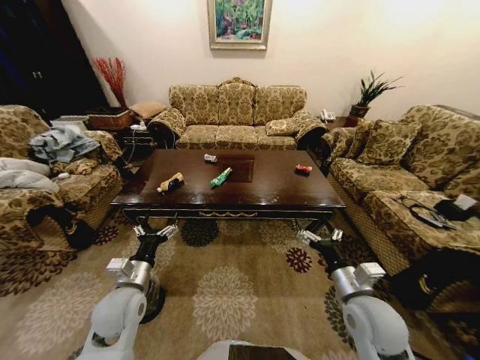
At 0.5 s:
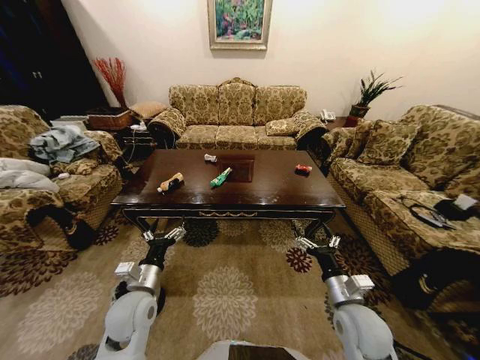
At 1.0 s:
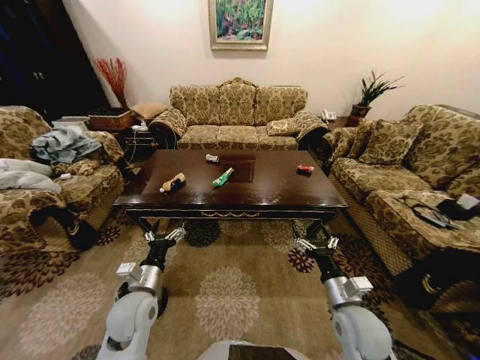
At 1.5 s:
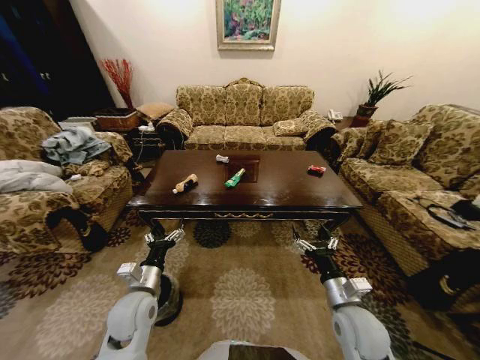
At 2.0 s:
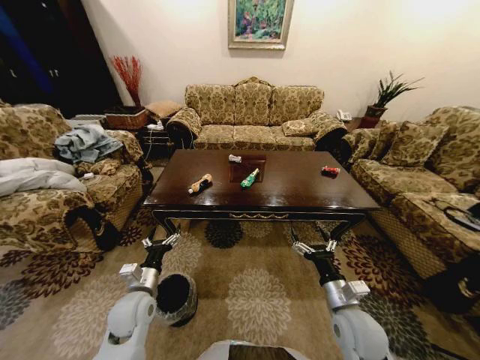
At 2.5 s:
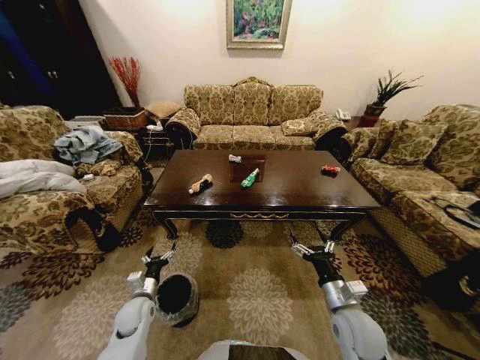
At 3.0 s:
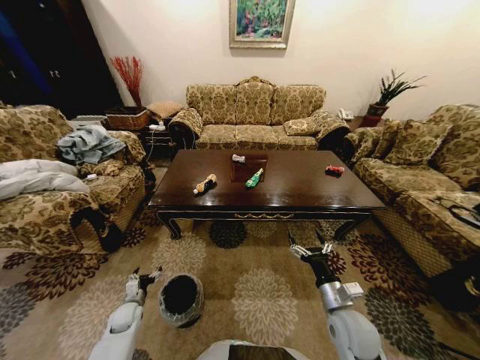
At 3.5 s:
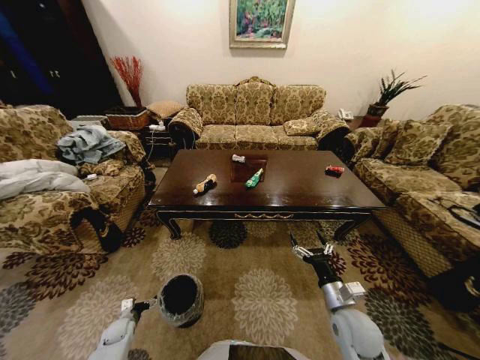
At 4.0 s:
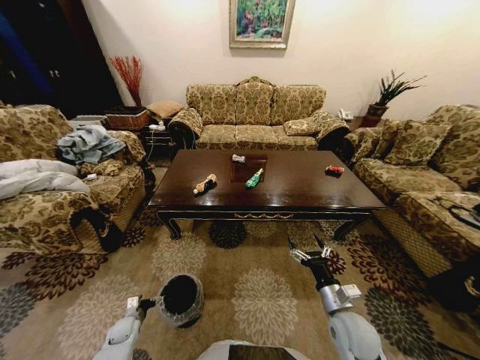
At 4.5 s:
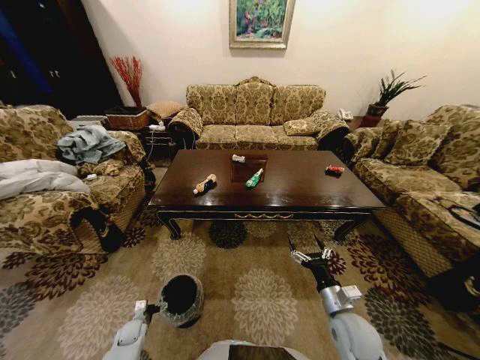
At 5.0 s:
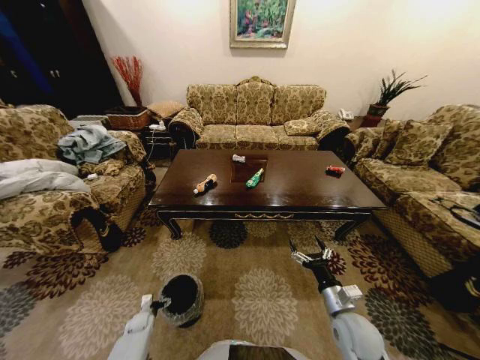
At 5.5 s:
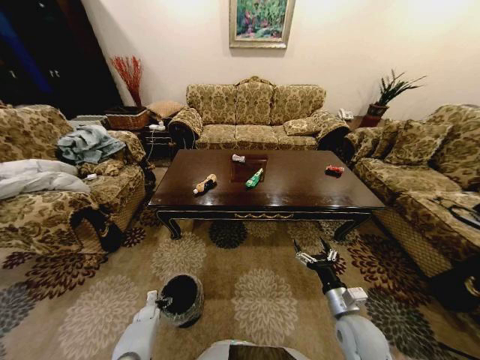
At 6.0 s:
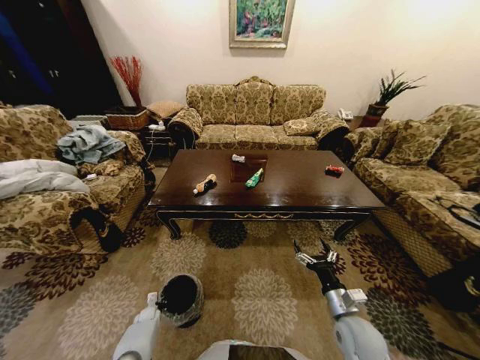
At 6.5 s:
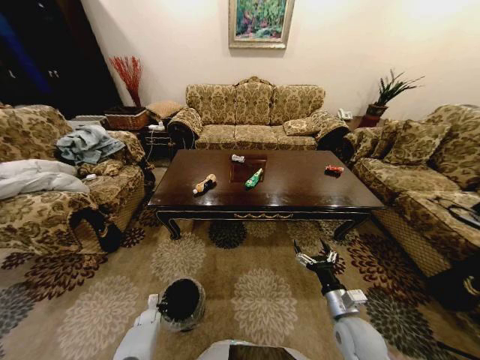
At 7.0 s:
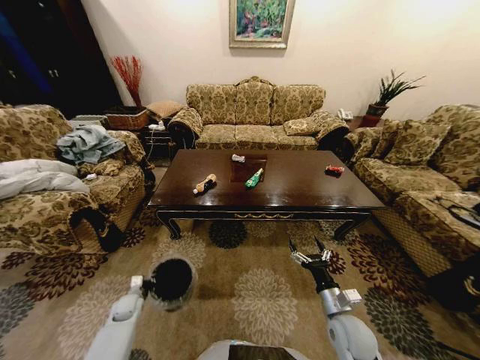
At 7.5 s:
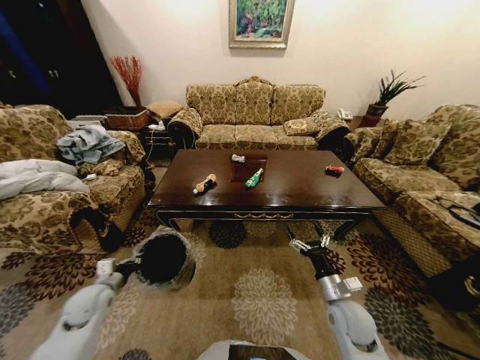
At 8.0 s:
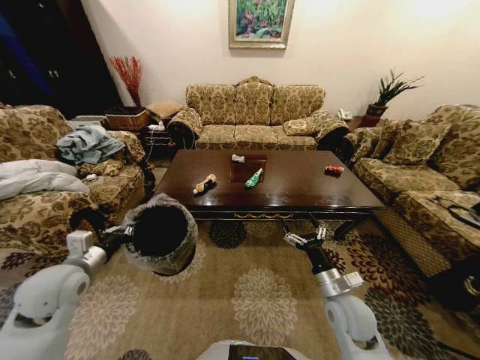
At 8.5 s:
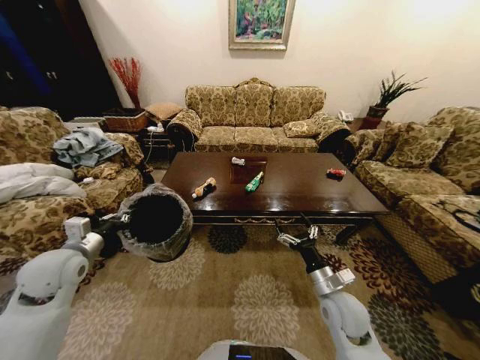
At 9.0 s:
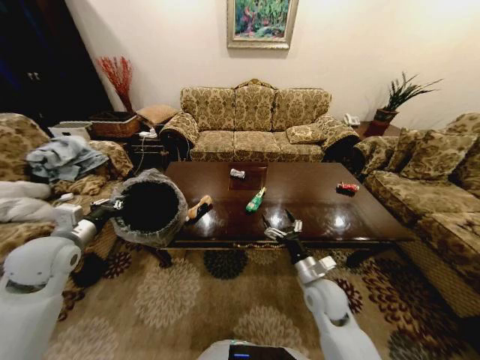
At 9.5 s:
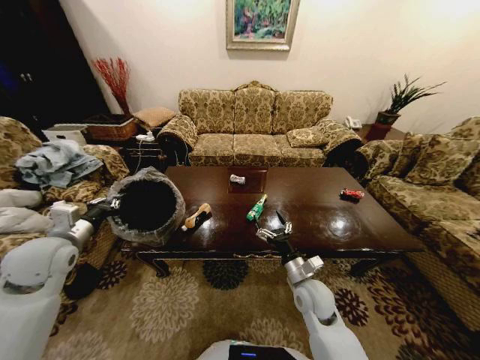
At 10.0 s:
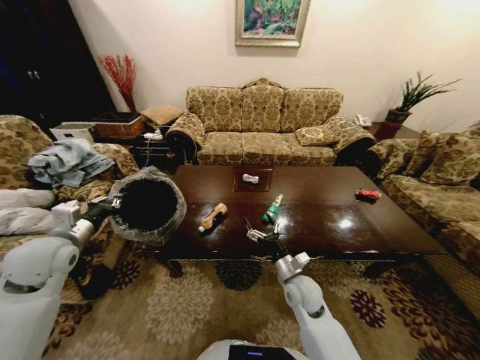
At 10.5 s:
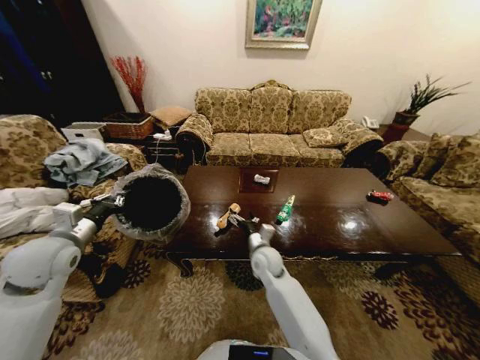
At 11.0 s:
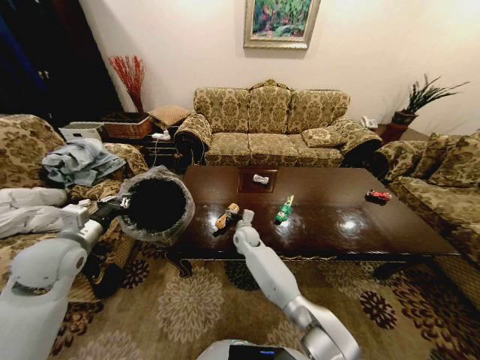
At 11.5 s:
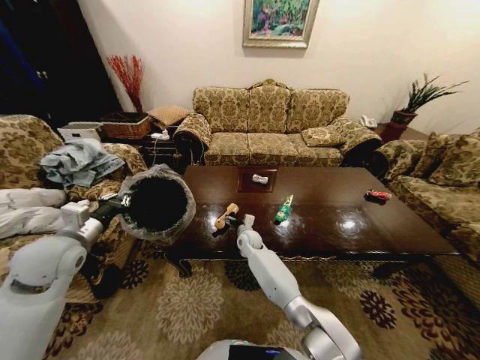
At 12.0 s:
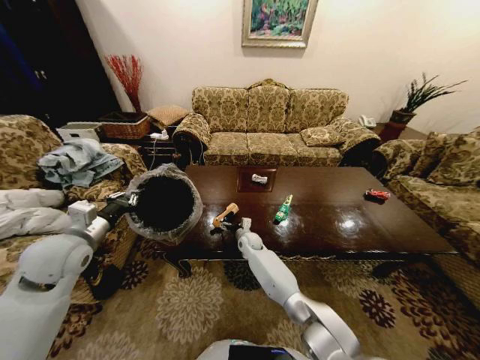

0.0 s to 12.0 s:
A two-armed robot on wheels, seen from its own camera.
Task of the whole recording: Move to the front of the table and place the trash on the table into the trash bin.
2.0 to 4.0 s: The left gripper heads downward and to the left, covering some 30 cm.
4.0 to 6.0 s: The left gripper is displaced downward and forward by some 10 cm, and closes its fingers.
6.0 to 8.0 s: The left gripper travels upward by roughly 50 cm, while the right gripper moves some 5 cm.
8.0 to 10.0 s: The left gripper ends up some 5 cm from where it was. The right gripper travels to the left and forward by roughly 10 cm.
10.0 to 12.0 s: The right gripper moves forward, to the left and downward, roughly 25 cm.

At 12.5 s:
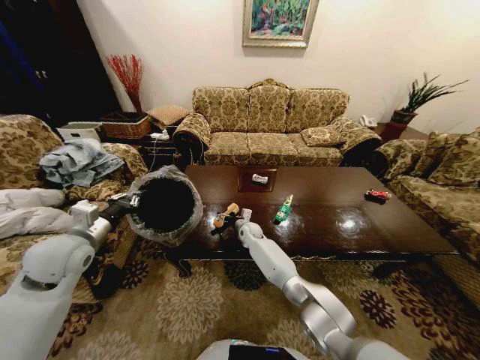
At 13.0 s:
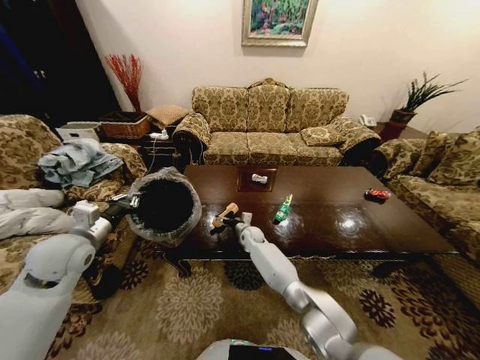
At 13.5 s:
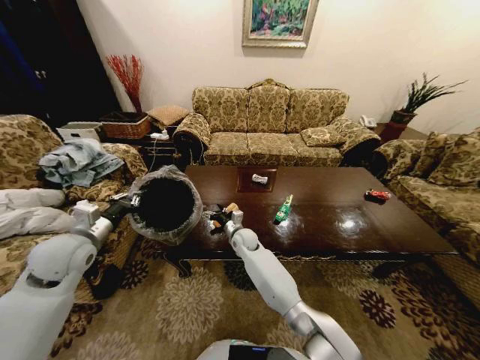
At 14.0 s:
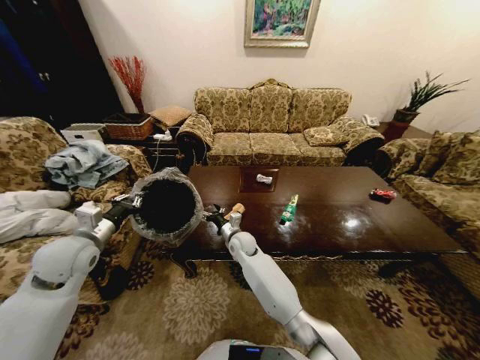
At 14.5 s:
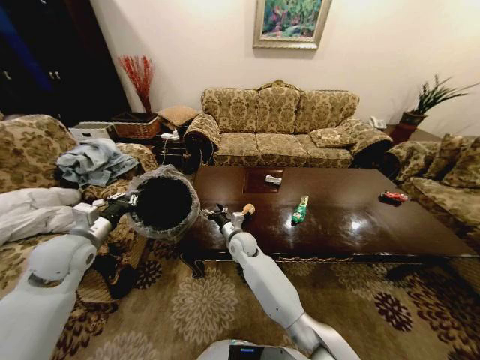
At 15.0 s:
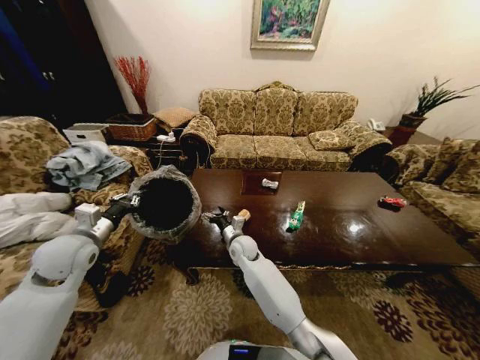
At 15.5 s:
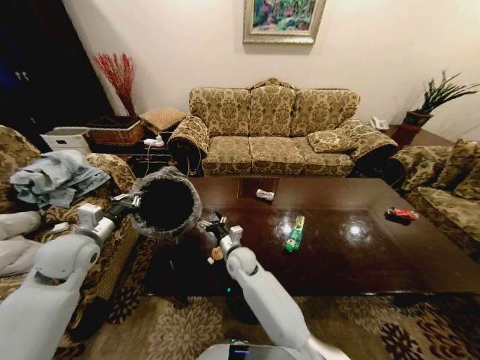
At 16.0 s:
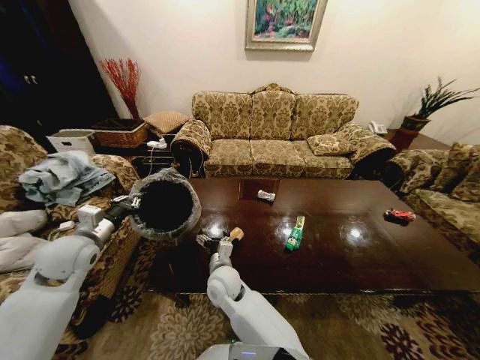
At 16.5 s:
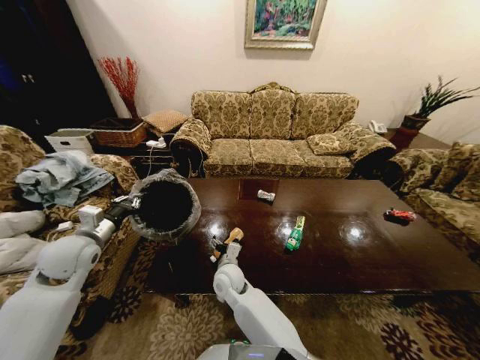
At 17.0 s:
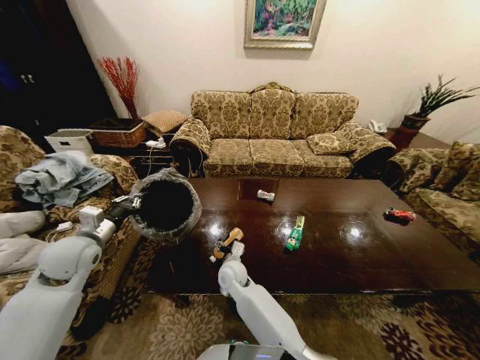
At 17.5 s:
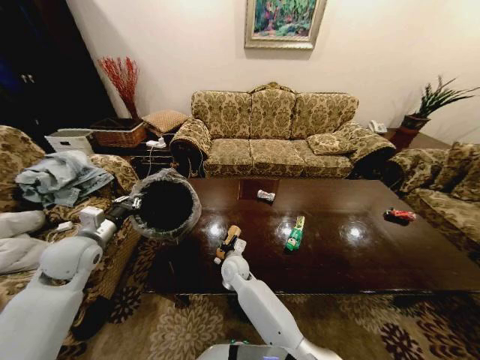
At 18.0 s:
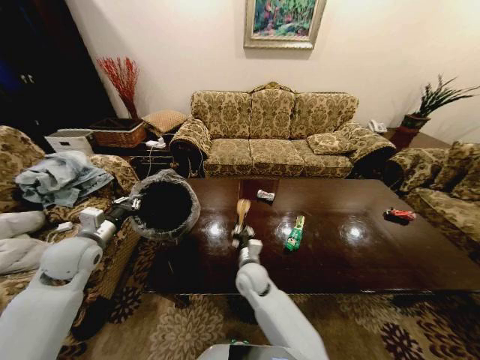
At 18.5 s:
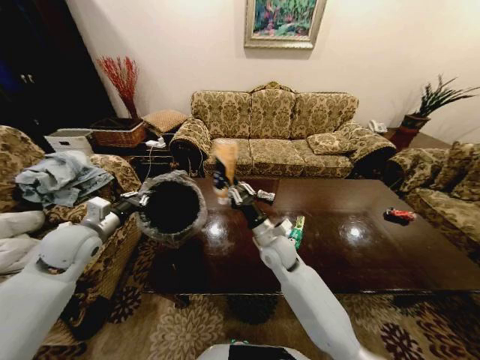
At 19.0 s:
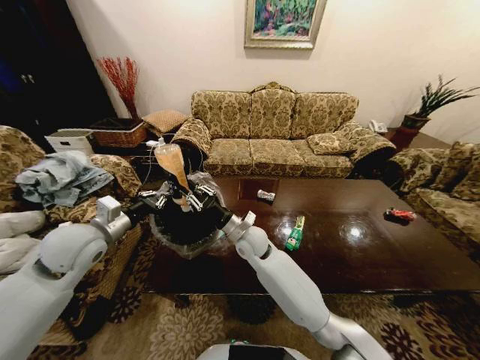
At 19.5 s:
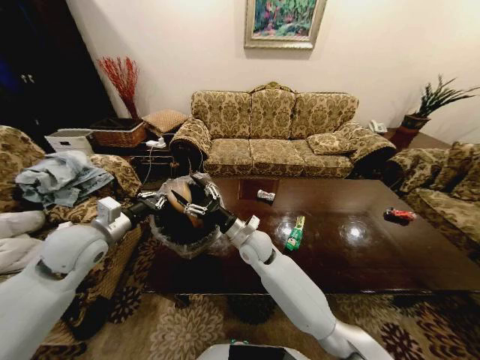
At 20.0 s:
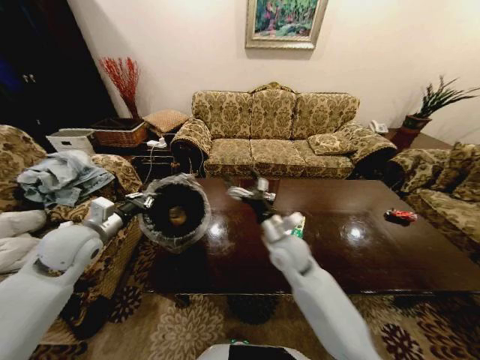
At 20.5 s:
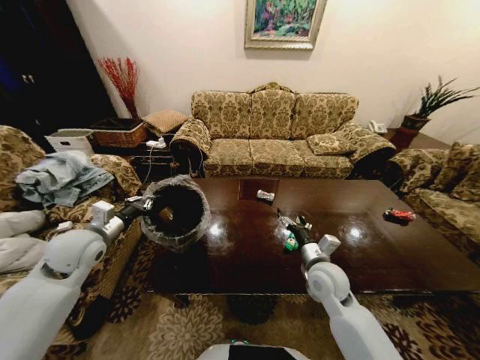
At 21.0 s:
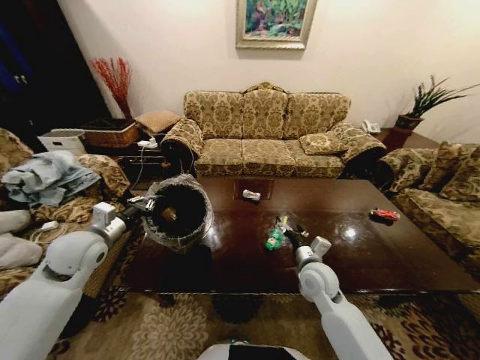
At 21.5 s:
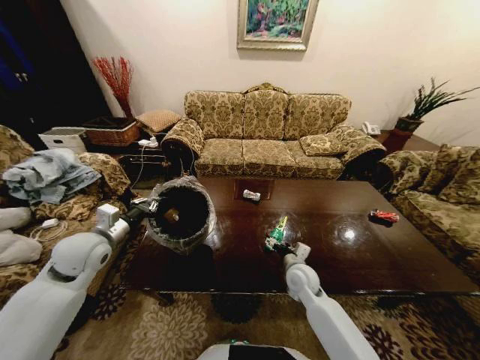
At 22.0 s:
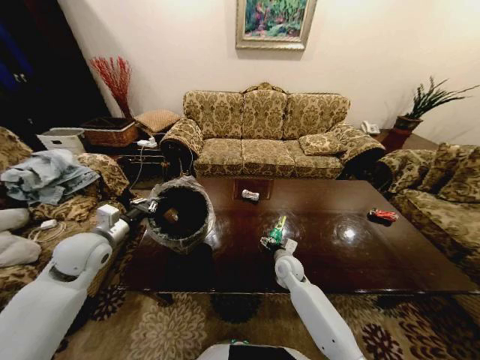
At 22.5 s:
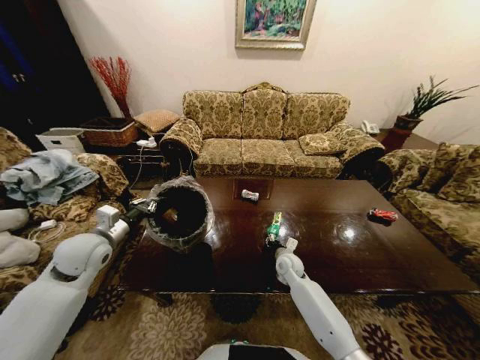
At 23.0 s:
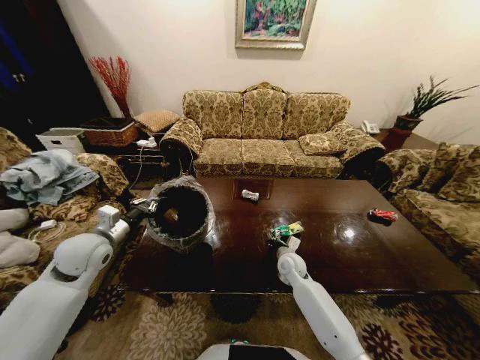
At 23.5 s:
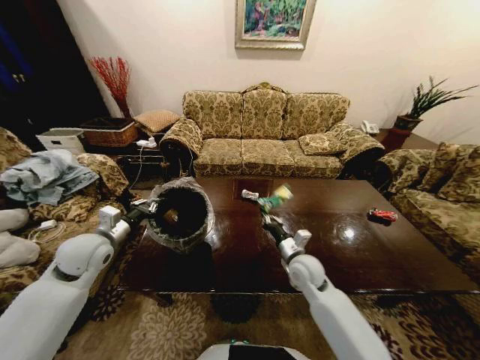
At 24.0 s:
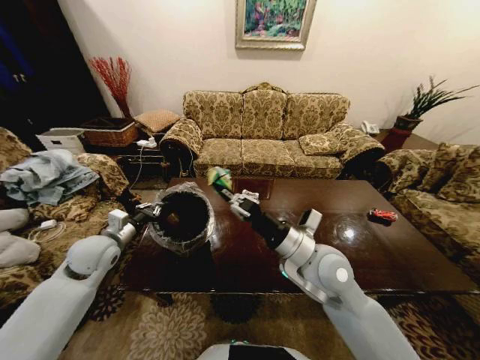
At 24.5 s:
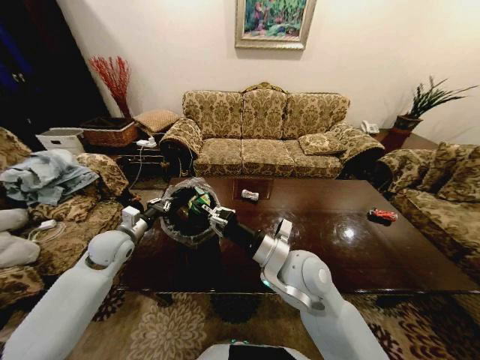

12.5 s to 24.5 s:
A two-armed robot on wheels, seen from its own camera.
Task of the whole recording: Move to the front of the table and place the trash on the table into the trash bin.
12.5 to 14.5 s: The right gripper heads backward and upward, covering some 10 cm.
14.5 to 16.5 s: The right gripper shifts about 10 cm backward.
16.5 to 18.5 s: The right gripper heads to the right and upward, covering some 20 cm, and closes up.
18.5 to 20.5 s: The right gripper goes about 15 cm to the right and backward, and opens its fingers.
20.5 to 22.5 s: The right gripper goes some 15 cm downward and forward, and closes up.
22.5 to 24.5 s: The right gripper shifts about 30 cm upward and backward, and closes; the left gripper changes place by some 5 cm.

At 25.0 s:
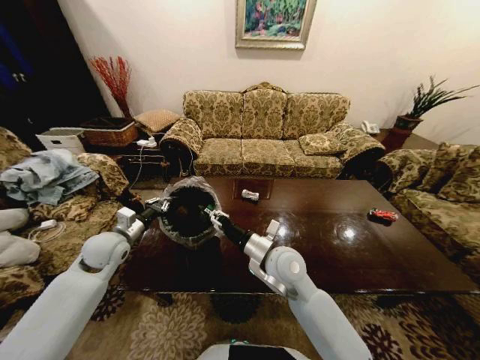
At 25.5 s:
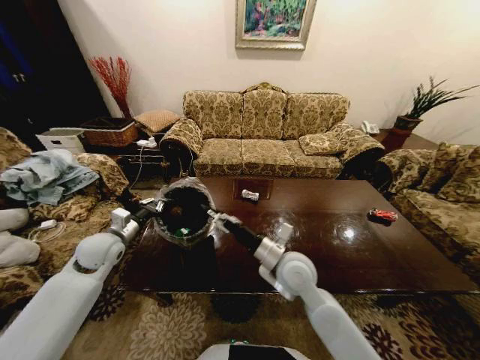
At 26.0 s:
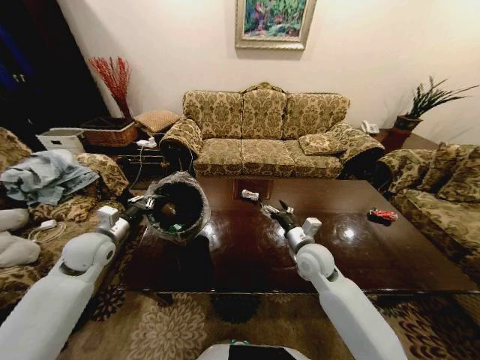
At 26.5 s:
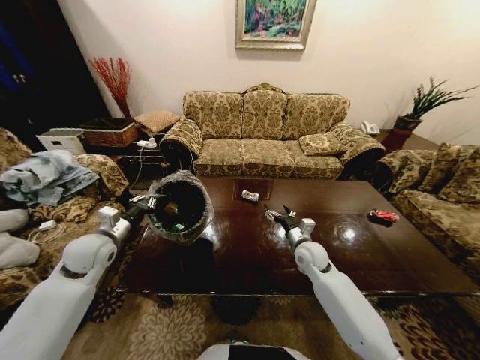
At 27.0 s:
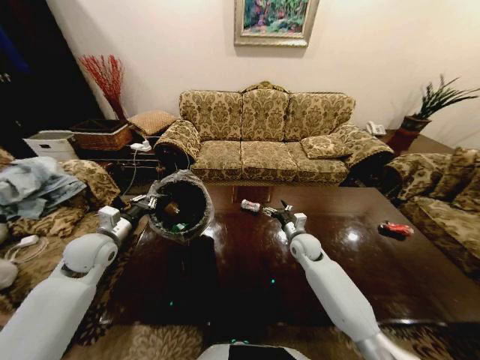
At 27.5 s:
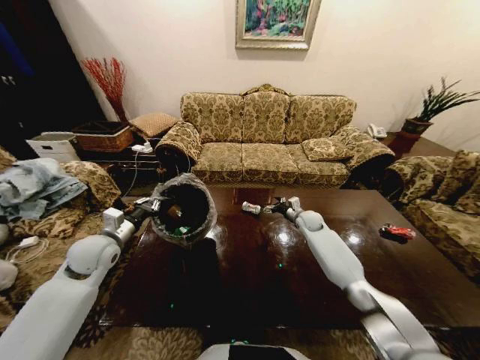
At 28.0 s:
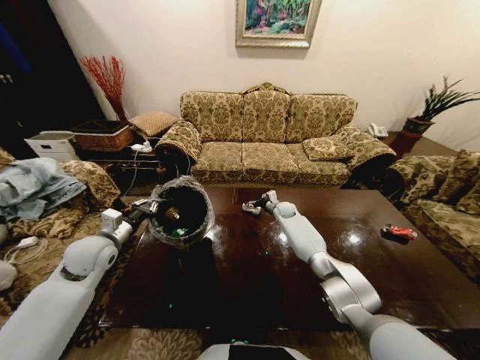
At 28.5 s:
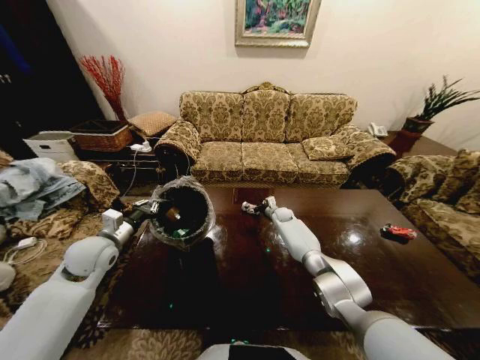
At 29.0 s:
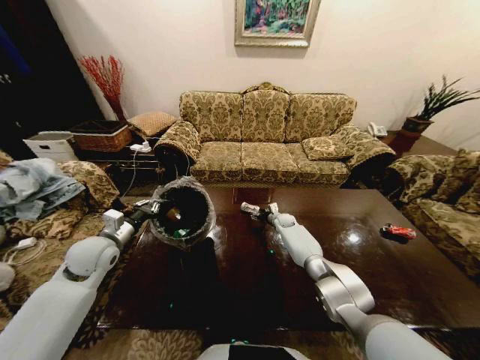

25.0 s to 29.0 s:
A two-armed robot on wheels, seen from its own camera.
Task of the whole recording: Move to the front of the table and place the trash on the table into the trash bin.
25.0 to 27.0 s: The right gripper moves forward, to the right and downward, approximately 20 cm, and opens up.
27.0 to 29.0 s: The right gripper heads forward and downward, covering about 20 cm.
